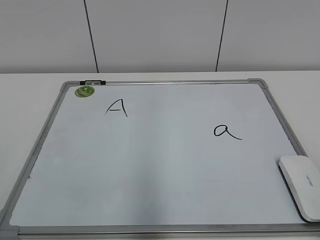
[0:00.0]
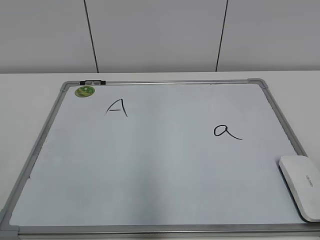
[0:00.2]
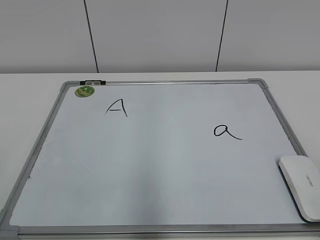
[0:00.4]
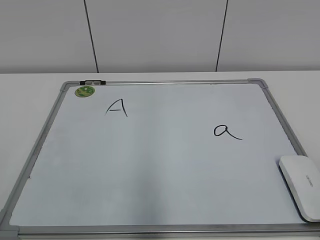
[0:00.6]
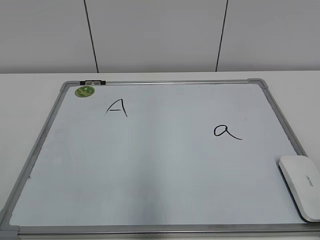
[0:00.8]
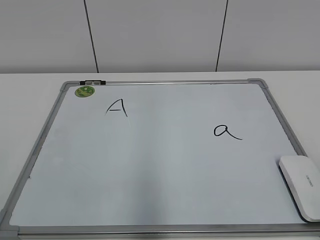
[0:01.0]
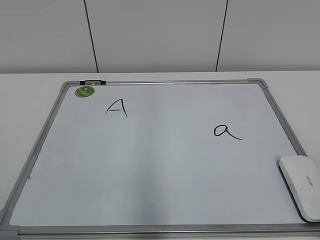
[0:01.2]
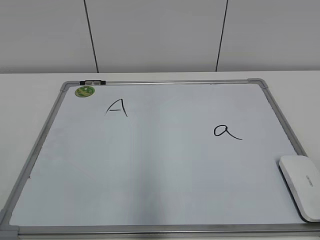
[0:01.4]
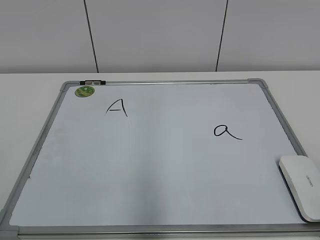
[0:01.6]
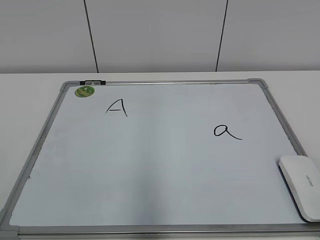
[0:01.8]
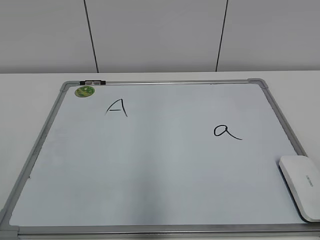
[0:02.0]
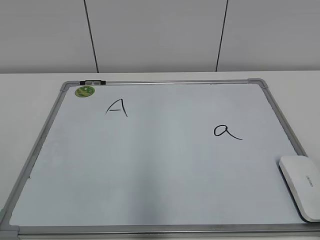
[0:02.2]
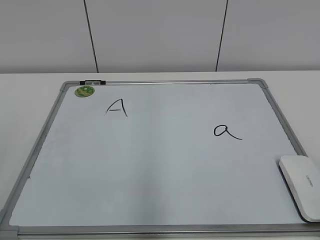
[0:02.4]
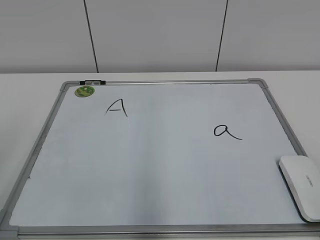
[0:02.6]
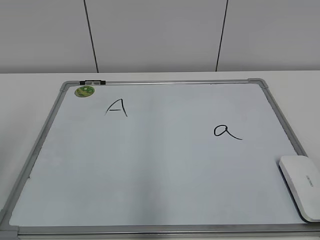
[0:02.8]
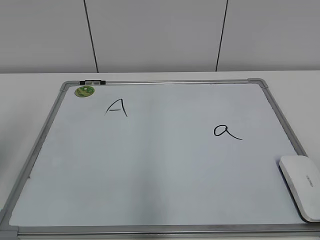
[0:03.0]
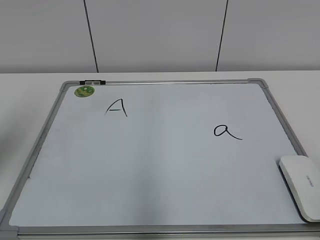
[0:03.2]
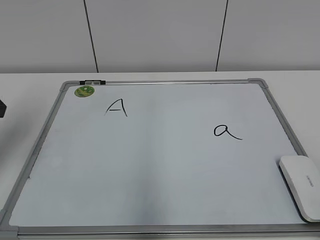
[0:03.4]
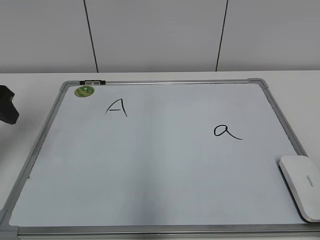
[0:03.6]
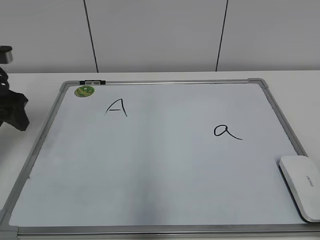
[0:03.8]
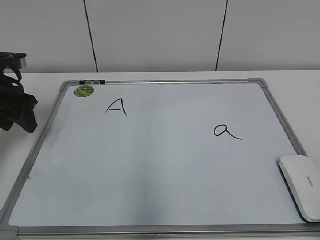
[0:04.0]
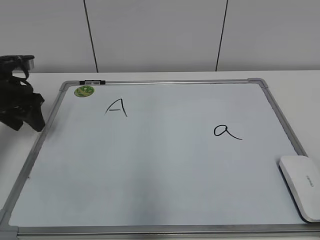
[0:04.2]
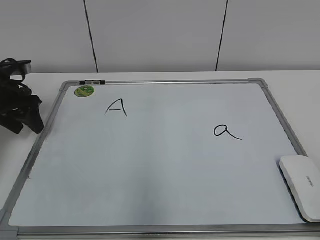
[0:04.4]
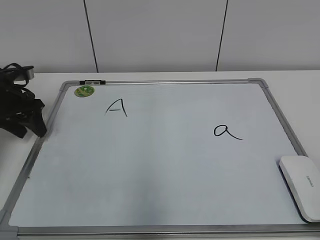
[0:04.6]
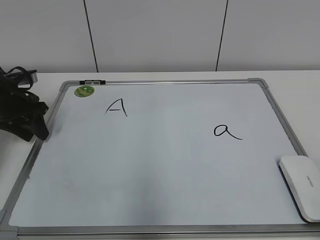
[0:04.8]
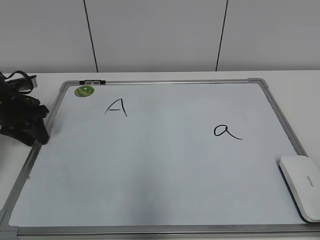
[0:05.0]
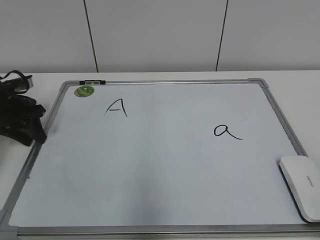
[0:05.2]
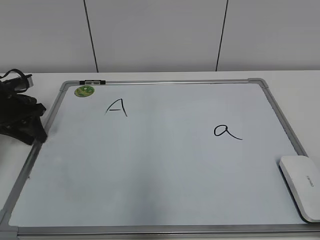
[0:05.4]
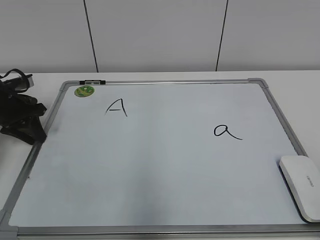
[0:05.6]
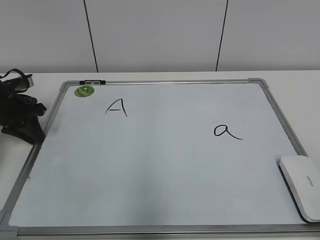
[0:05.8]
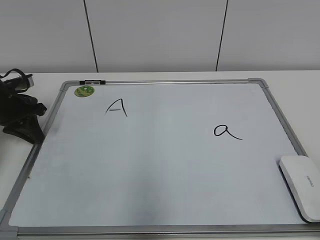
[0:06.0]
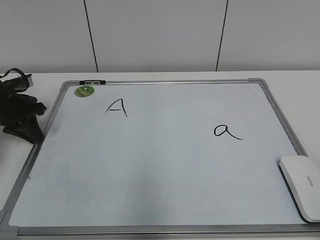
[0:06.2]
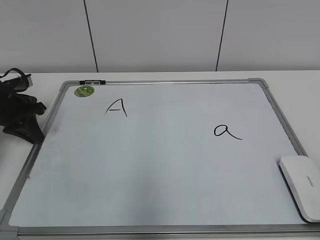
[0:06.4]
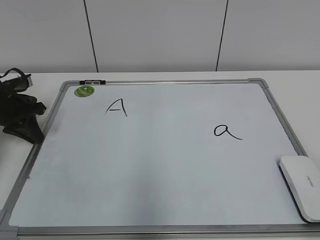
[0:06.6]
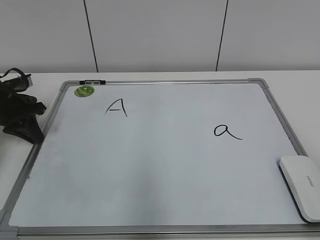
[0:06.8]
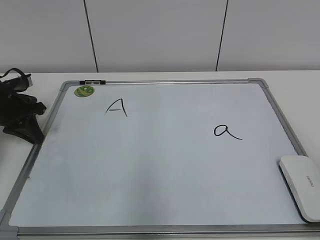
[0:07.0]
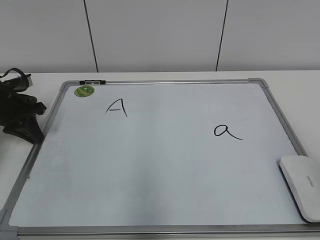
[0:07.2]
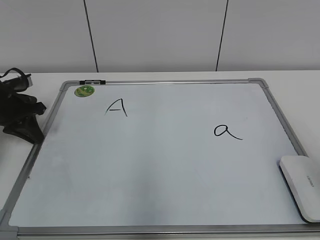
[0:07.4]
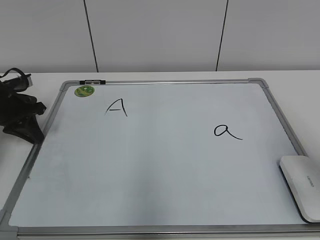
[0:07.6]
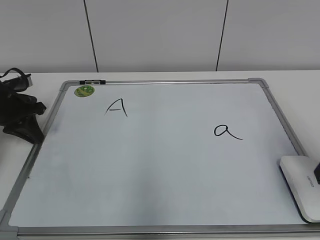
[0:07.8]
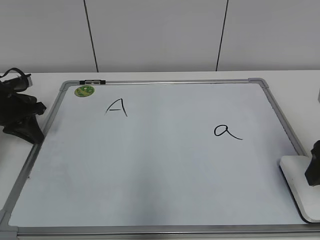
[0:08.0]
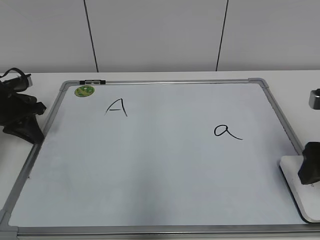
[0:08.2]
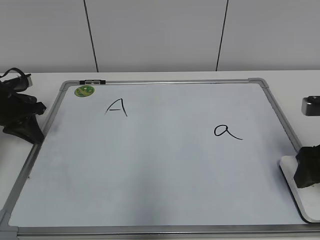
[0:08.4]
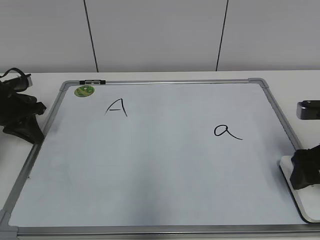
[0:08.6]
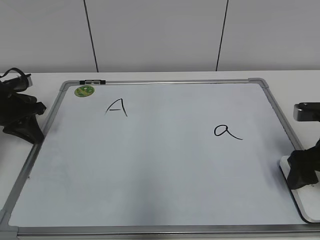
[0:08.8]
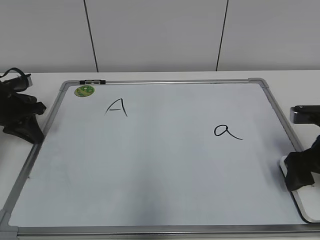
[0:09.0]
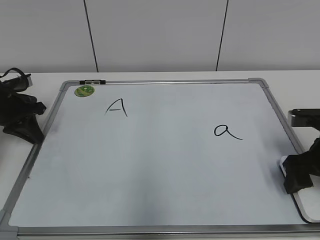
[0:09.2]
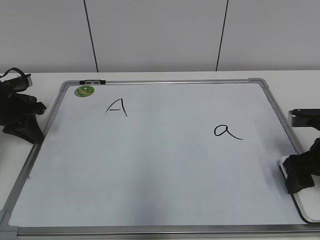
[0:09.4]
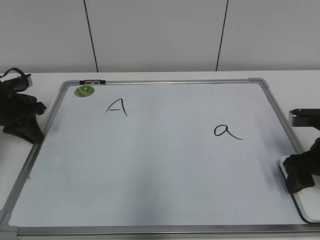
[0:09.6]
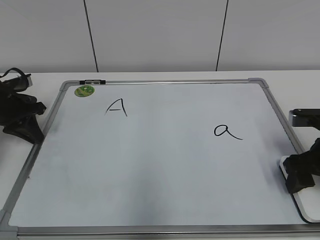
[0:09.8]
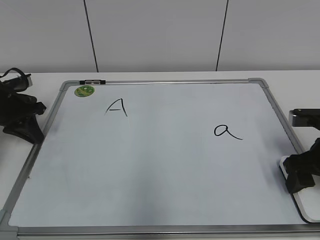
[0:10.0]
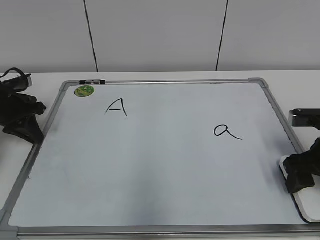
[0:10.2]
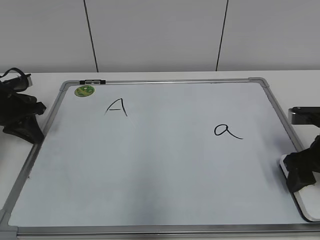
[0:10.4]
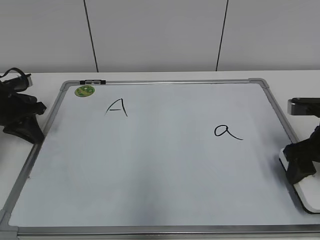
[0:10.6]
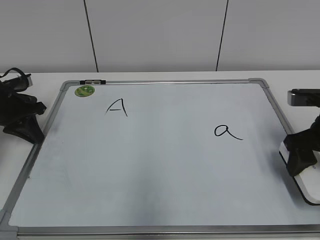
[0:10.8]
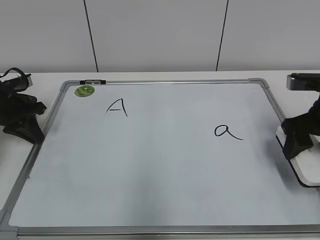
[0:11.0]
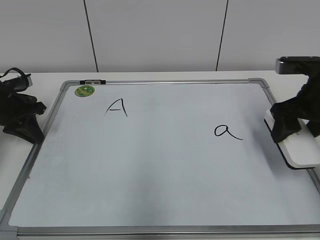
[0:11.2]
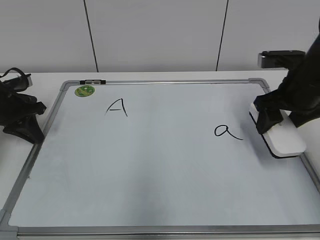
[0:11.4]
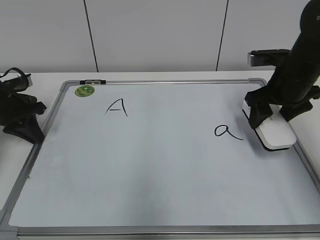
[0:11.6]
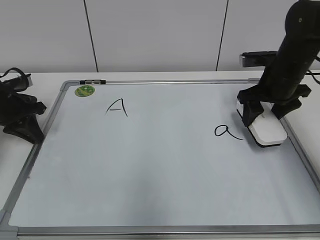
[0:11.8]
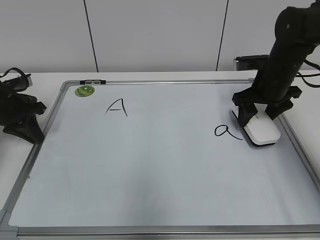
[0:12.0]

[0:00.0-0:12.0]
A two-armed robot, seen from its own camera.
Task of the whole recording: pick up the eraser on the blackboard and erase the letter "a".
Step, 0:00.0 to 0:05.8: Hold the drawing board steady with your left hand.
Step, 0:06.0 to 0:10.2: Grab the eraser with your right hand.
0:01.6 to 0:03.0: The left gripper is displaced forward by approximately 20 cm.
0:03.0 to 0:04.4: The left gripper heads forward and downward, covering about 25 cm.
0:04.4 to 0:06.0: The left gripper closes.
0:06.0 to 0:07.6: The right gripper goes about 20 cm forward.
0:07.6 to 0:09.0: The right gripper travels downward and forward by approximately 15 cm.
0:09.0 to 0:10.4: The right gripper closes.
0:10.4 to 0:12.0: The right gripper moves forward, about 15 cm.

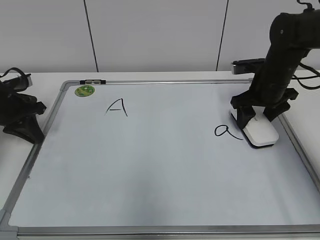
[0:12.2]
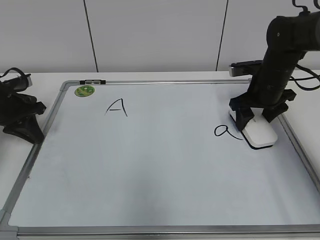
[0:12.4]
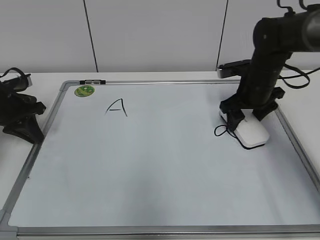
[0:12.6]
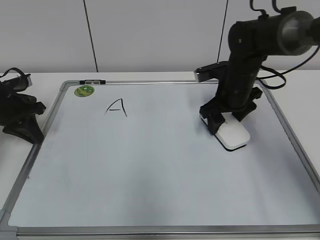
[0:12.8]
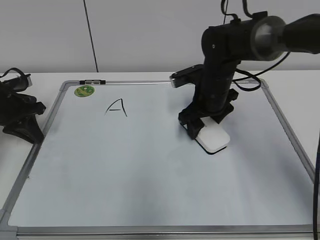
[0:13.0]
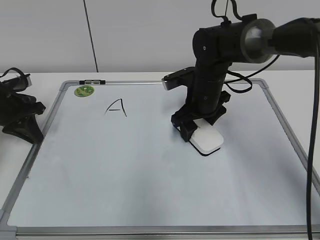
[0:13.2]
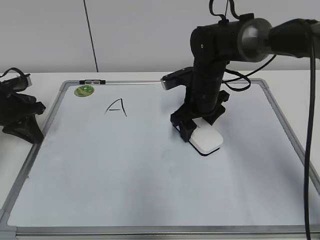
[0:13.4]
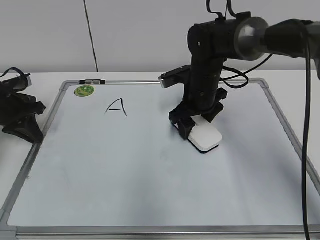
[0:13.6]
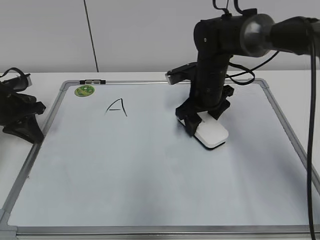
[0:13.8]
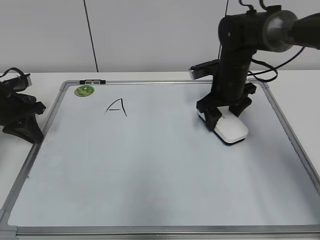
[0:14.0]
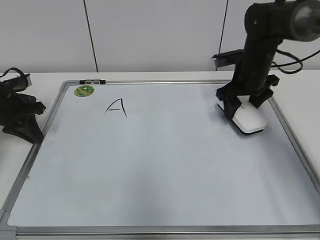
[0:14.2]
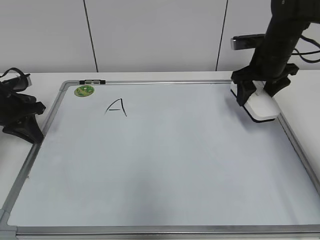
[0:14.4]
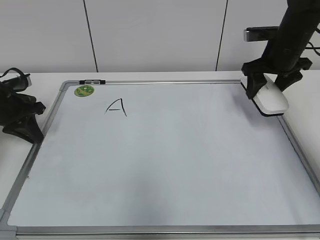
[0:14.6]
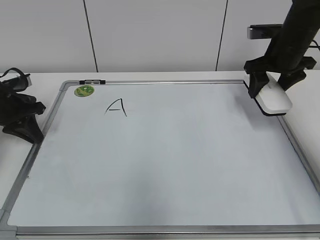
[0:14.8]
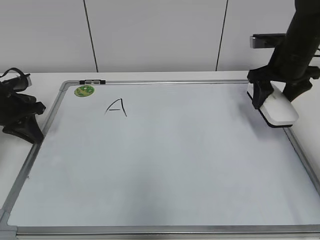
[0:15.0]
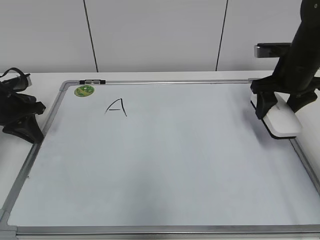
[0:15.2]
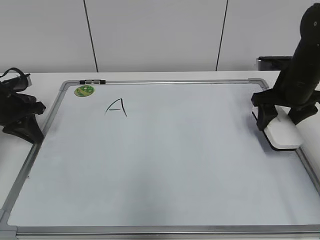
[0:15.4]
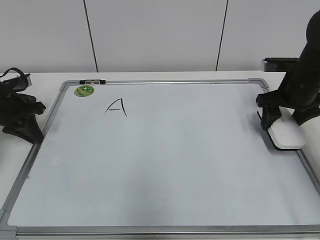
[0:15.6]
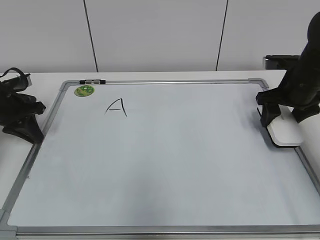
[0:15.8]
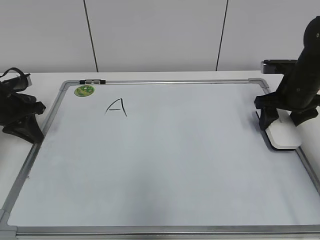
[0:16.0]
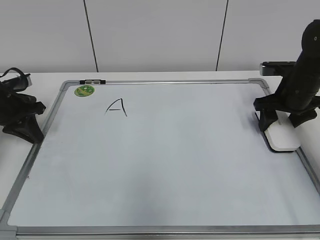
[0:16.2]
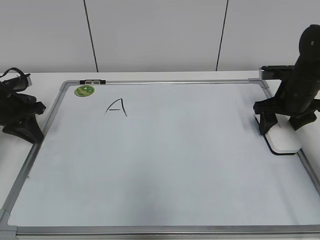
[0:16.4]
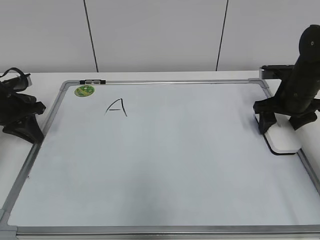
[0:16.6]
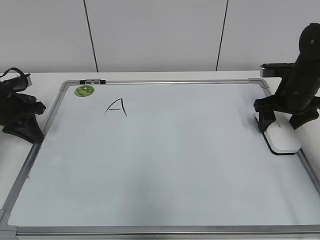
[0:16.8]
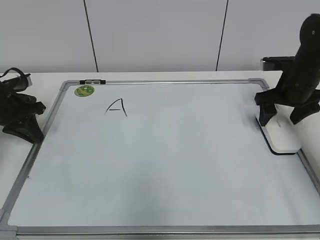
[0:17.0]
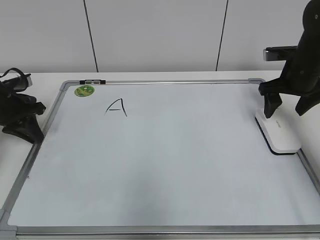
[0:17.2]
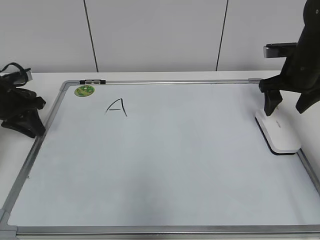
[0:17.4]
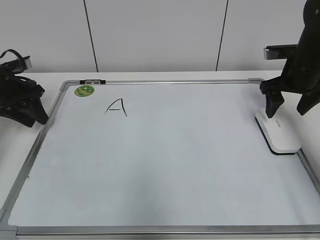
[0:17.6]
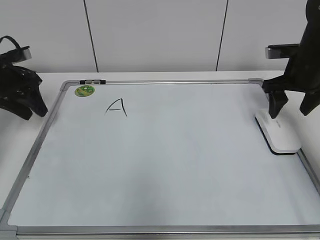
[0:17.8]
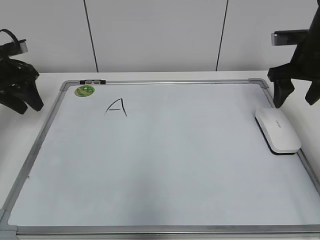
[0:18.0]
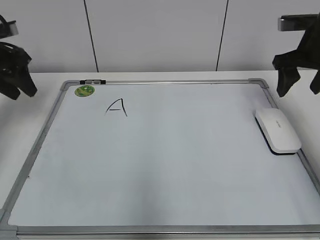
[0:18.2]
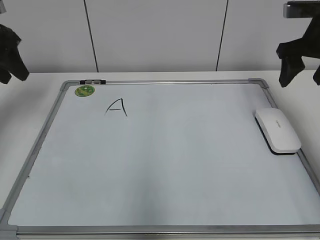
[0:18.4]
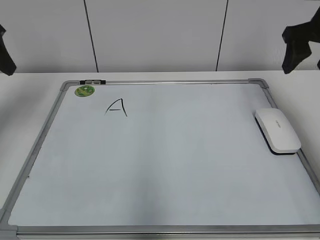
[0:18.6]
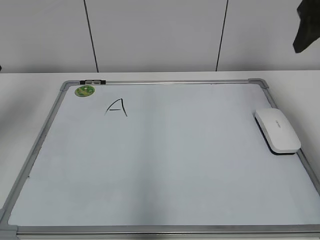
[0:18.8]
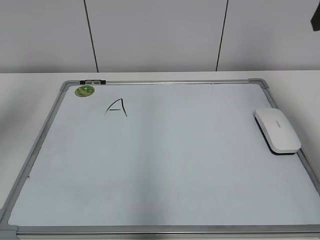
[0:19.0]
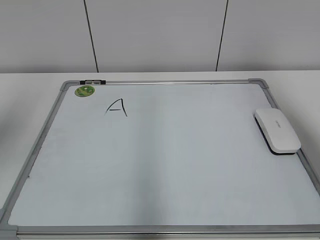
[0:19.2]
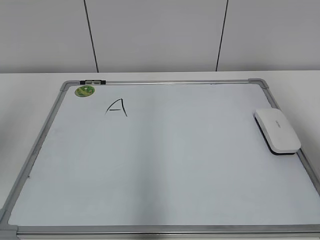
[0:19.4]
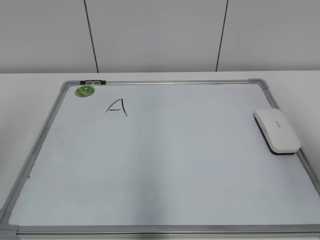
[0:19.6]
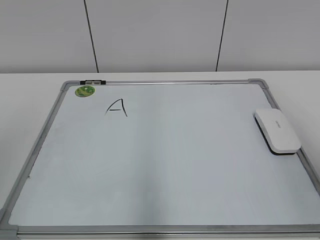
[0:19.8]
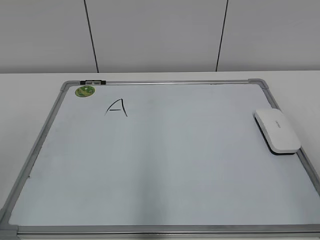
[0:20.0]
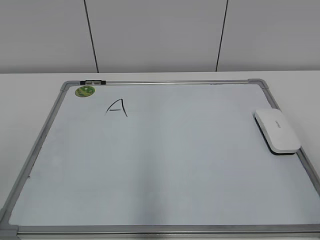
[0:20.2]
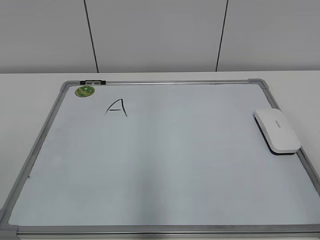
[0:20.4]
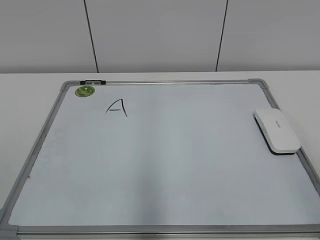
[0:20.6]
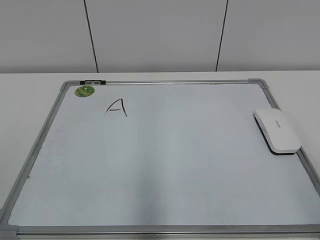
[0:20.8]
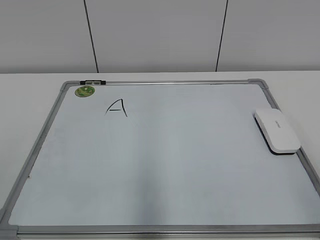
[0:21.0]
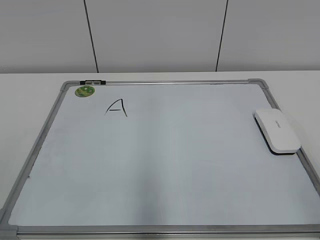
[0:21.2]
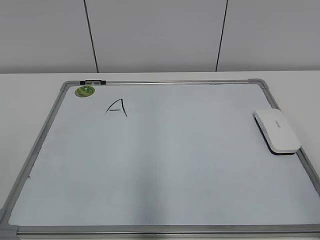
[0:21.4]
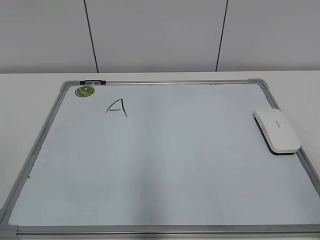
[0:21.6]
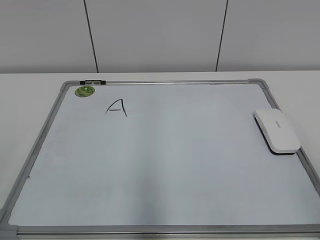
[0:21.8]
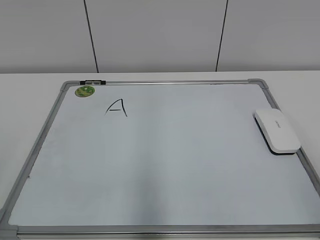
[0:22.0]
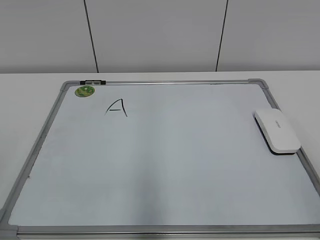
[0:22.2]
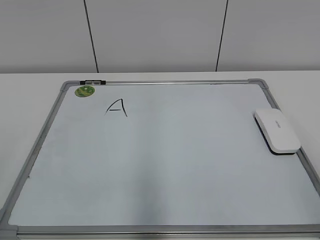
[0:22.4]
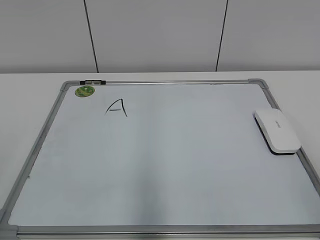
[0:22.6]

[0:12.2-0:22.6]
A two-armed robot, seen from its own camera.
Task of the whole recording: pick up the eraser on the blackboard and erase the letter "a".
Step, 0:14.2 to 0:16.8: Put down the eraser with your right hand.
0:12.2 to 0:13.6: The right gripper goes some 15 cm to the left.
0:13.6 to 0:15.2: The right gripper is displaced to the right by roughly 15 cm.
0:15.2 to 0:16.6: The right gripper shifts some 5 cm downward, and opens up.
0:16.6 to 0:18.2: Both grippers move upward, roughly 10 cm. The left gripper opens.
0:18.2 to 0:19.6: The grippers both shift backward and upward by roughly 30 cm.
